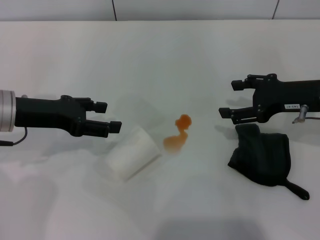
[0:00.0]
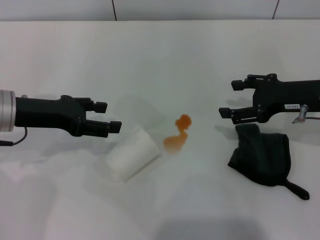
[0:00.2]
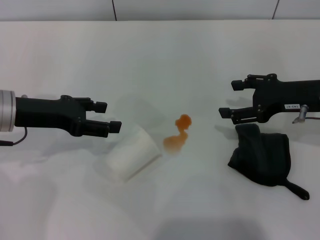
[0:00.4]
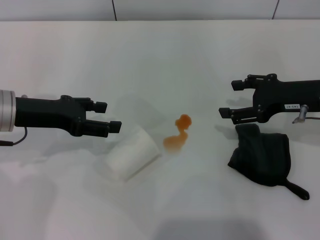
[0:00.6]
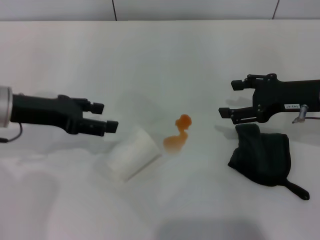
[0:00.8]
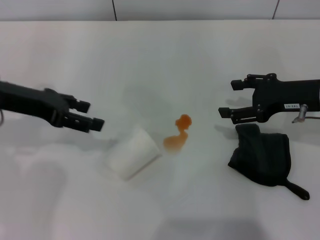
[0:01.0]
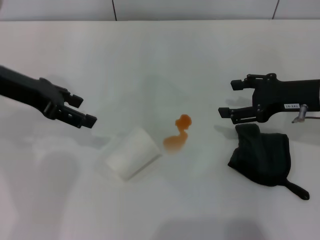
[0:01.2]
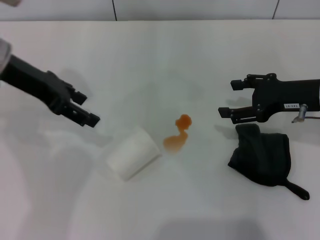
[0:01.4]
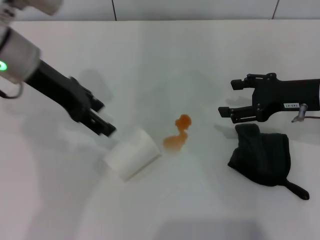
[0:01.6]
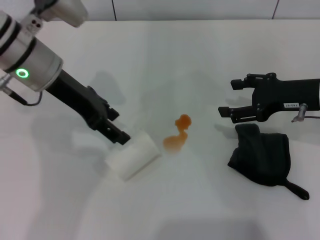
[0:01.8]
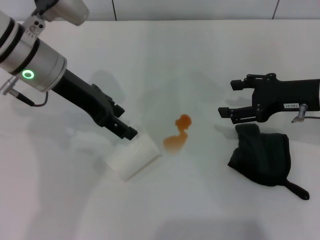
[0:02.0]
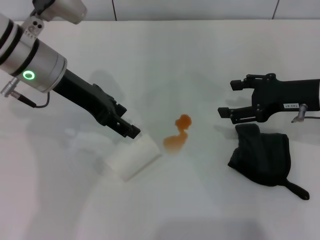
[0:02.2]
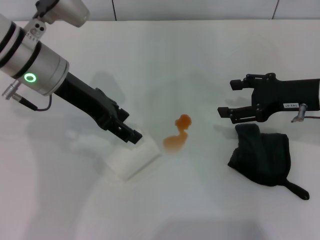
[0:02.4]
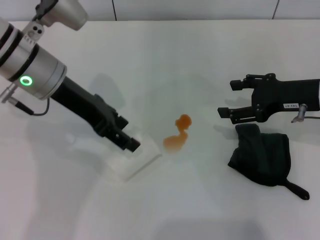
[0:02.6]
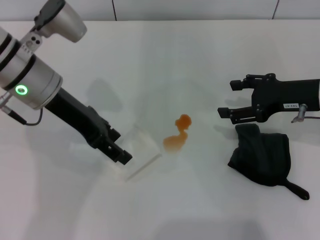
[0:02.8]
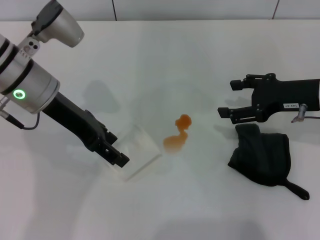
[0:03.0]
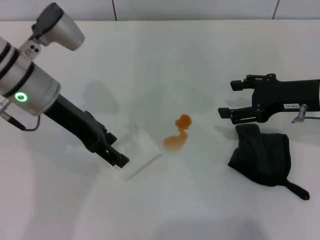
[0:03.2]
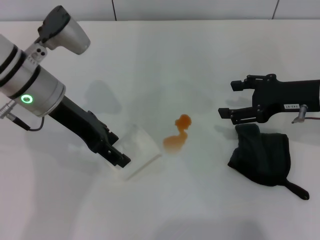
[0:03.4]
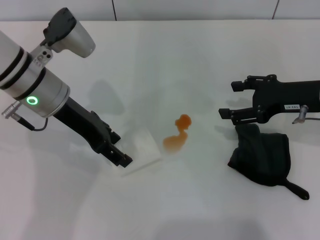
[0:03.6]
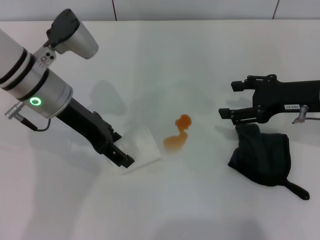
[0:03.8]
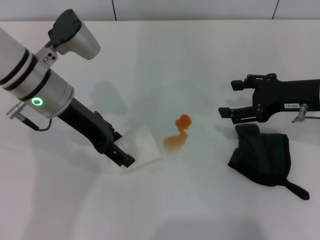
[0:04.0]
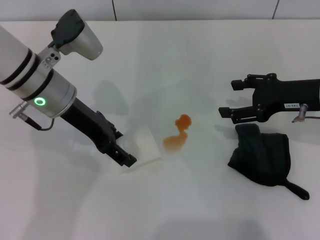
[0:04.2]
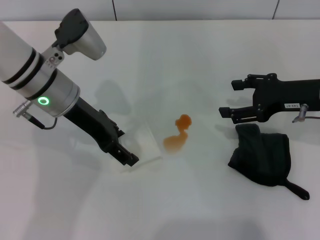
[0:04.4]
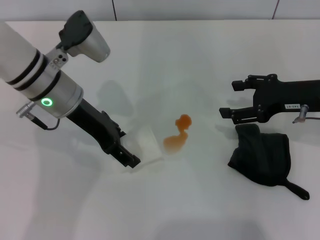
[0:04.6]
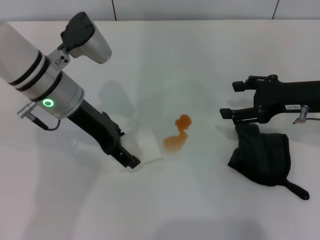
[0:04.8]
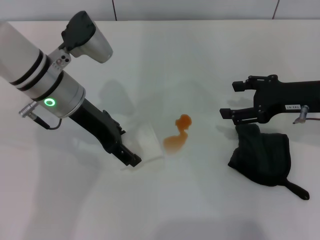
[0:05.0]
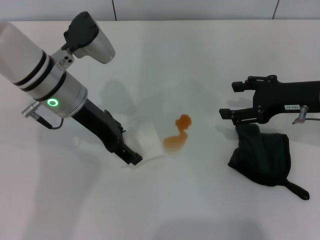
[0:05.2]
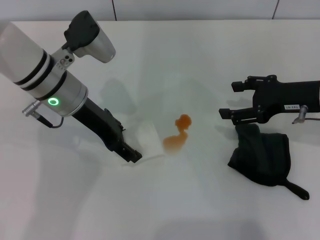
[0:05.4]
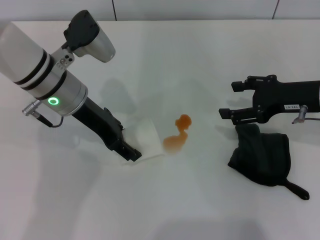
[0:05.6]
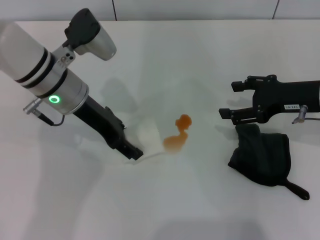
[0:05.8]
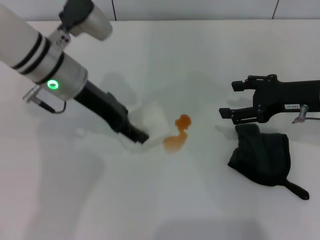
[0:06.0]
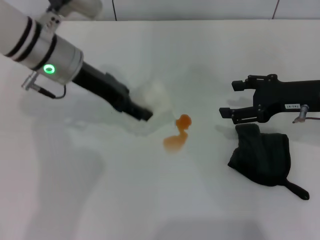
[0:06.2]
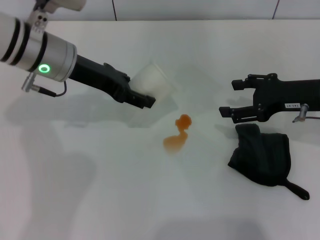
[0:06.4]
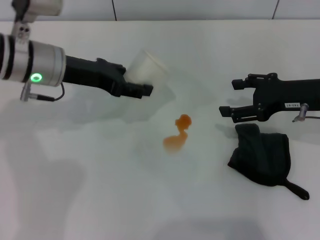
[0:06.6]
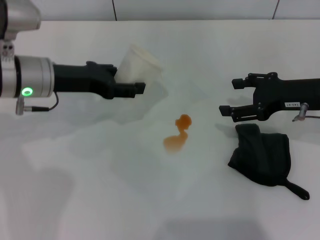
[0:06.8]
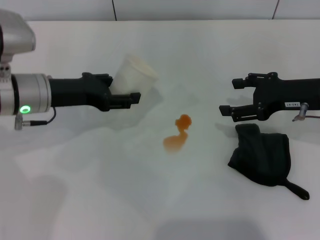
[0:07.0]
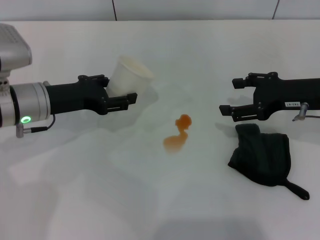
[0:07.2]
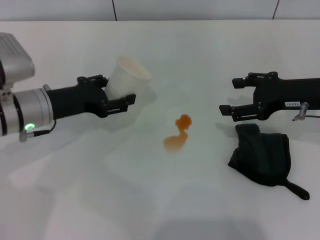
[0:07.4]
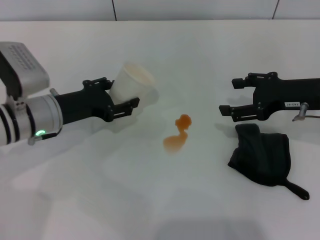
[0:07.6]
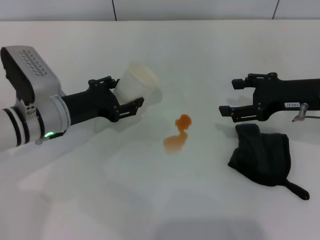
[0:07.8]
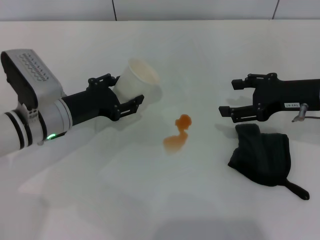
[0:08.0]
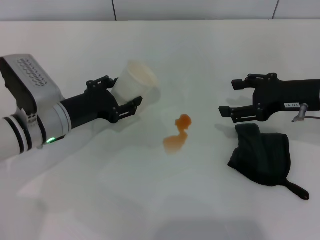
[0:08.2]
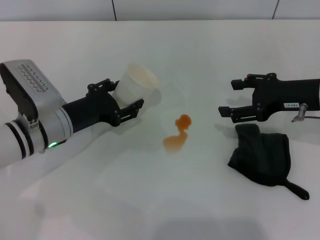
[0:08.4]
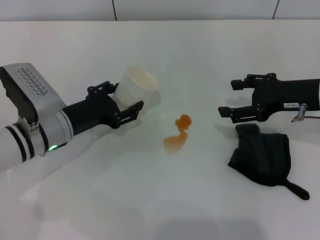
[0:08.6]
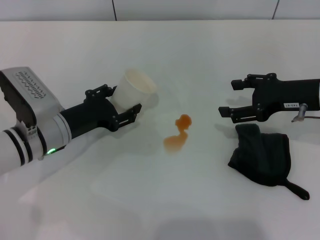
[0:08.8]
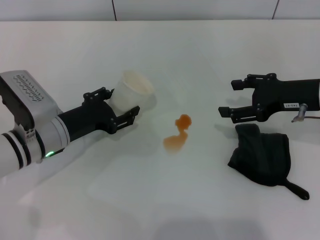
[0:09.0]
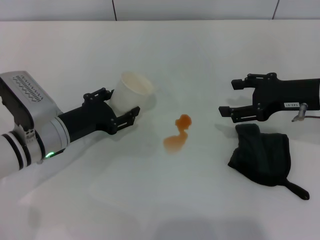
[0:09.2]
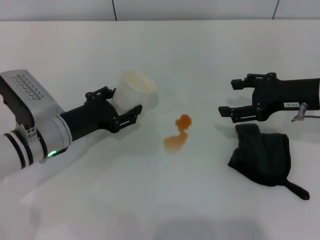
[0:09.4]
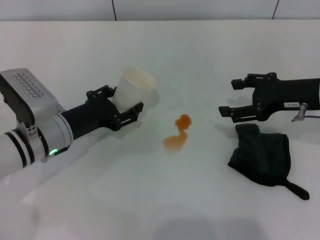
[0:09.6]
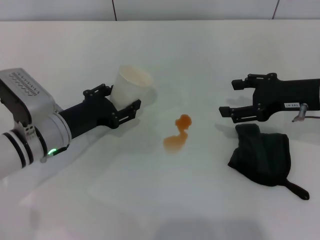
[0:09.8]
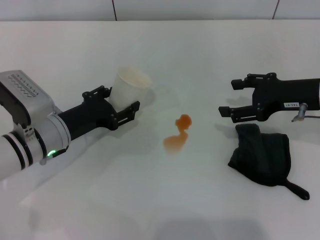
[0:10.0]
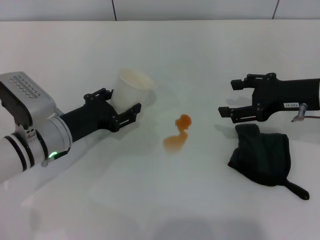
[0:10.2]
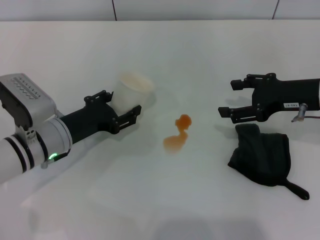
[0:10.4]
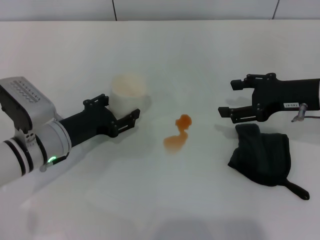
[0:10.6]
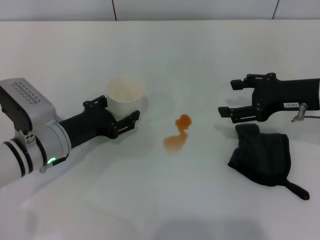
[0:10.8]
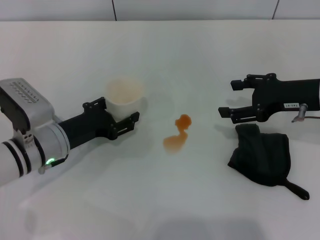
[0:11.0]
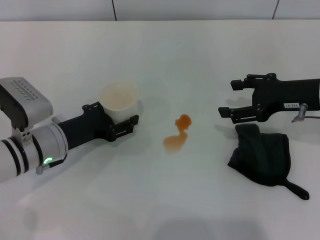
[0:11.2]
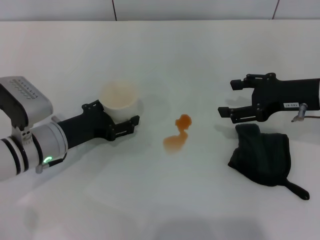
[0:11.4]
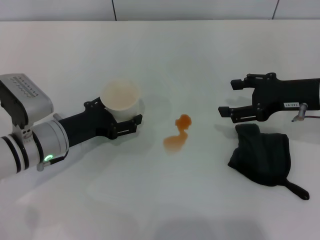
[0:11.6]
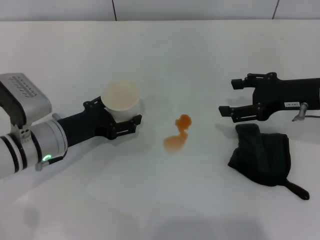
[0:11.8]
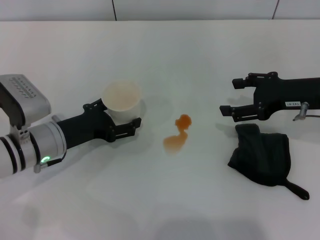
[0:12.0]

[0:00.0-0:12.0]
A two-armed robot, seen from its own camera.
Step, 0:00.0 to 0:05.6: Grasp the paper cup with the left gripper.
0:00.0 to 0:01.6: The left gripper goes some 10 cm upward, to the right and forward.
0:01.6 to 0:03.0: The grippers make only small movements.
0:03.0 to 0:04.4: The grippers move only a little.
0:04.4 to 0:06.0: The left gripper closes its fingers.
0:06.0 to 0:07.6: The left gripper moves downward and to the left, about 10 cm.
0:07.6 to 0:10.4: The grippers make only small movements.
0:10.4 to 0:12.0: The left gripper opens.

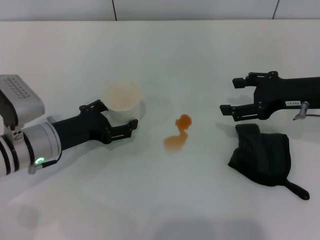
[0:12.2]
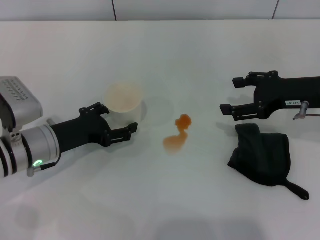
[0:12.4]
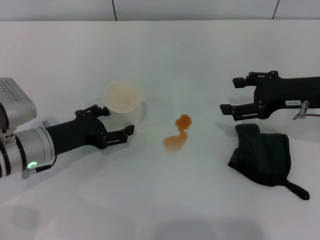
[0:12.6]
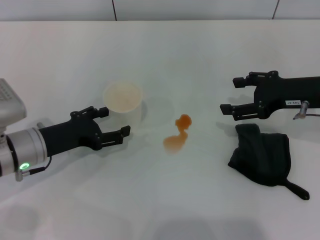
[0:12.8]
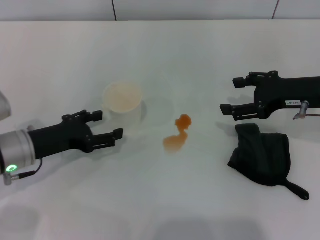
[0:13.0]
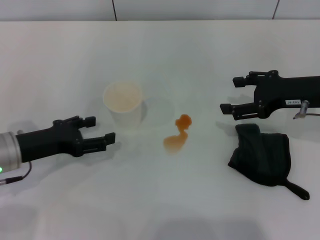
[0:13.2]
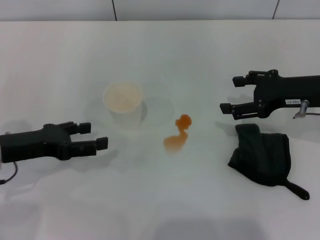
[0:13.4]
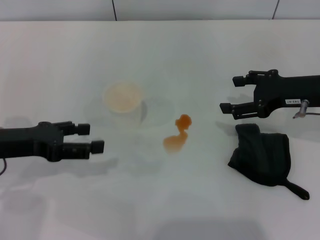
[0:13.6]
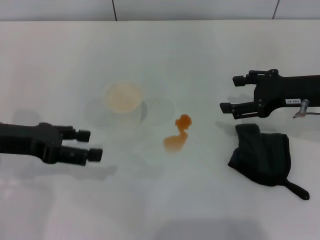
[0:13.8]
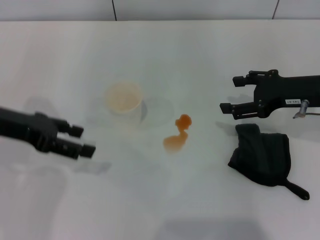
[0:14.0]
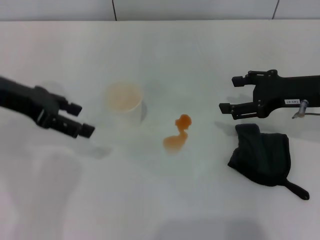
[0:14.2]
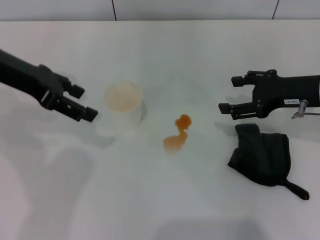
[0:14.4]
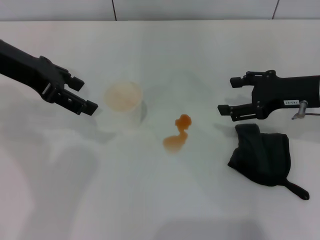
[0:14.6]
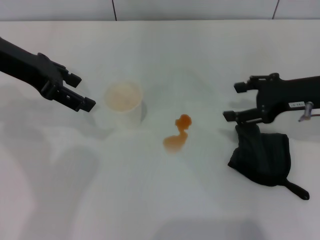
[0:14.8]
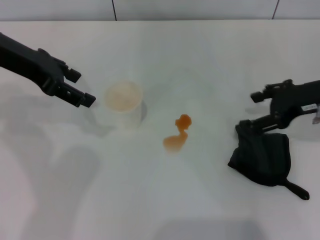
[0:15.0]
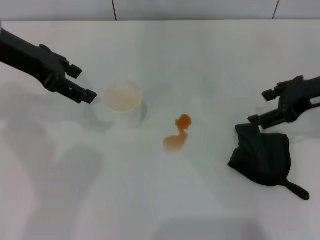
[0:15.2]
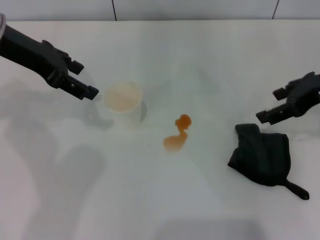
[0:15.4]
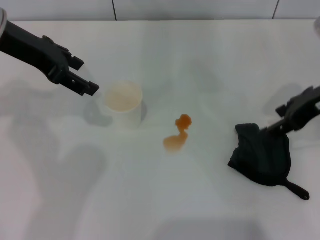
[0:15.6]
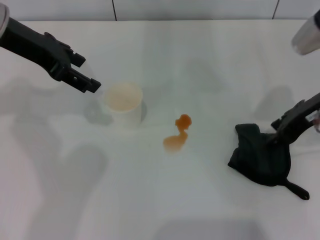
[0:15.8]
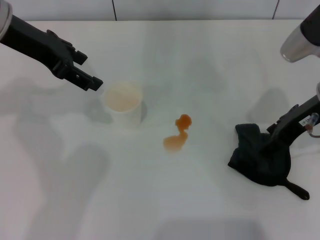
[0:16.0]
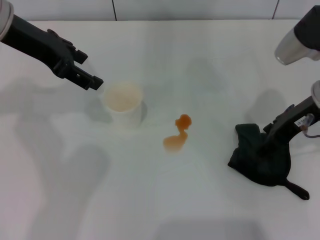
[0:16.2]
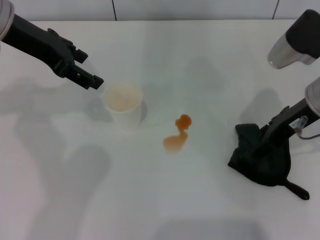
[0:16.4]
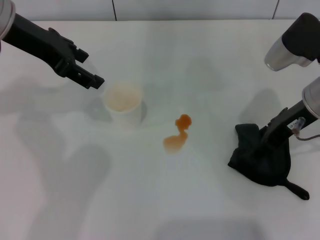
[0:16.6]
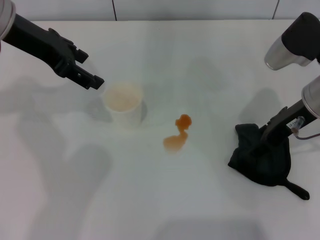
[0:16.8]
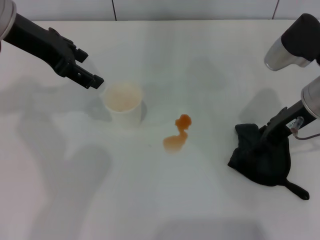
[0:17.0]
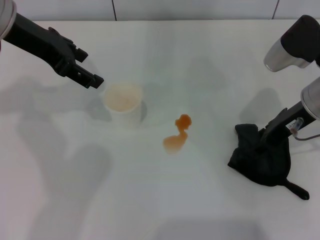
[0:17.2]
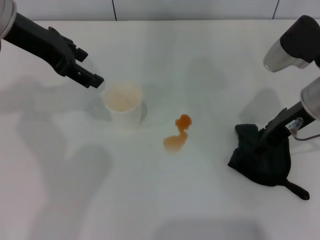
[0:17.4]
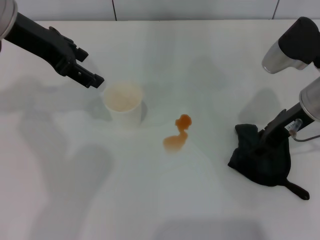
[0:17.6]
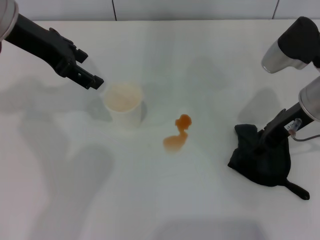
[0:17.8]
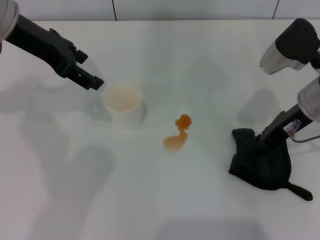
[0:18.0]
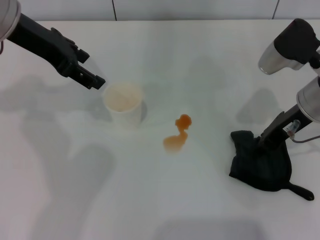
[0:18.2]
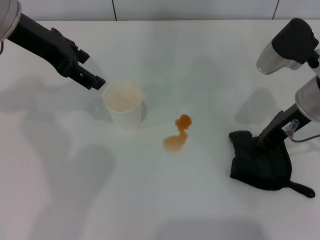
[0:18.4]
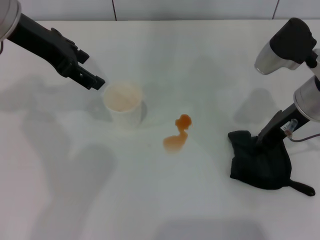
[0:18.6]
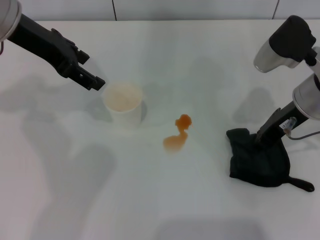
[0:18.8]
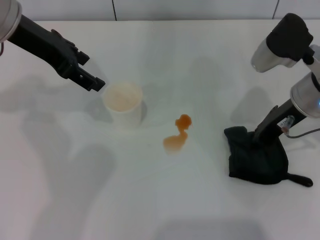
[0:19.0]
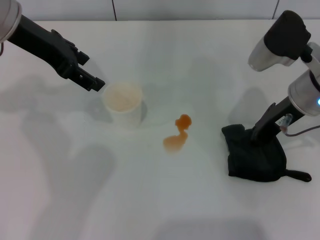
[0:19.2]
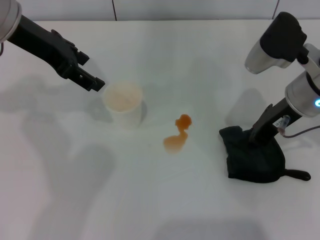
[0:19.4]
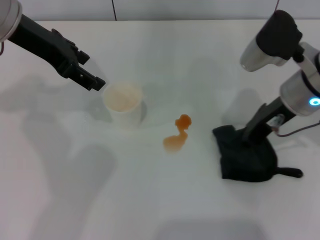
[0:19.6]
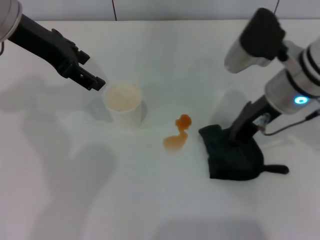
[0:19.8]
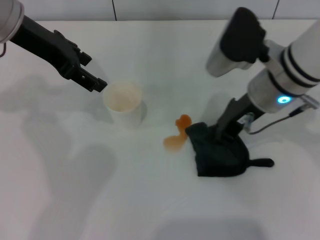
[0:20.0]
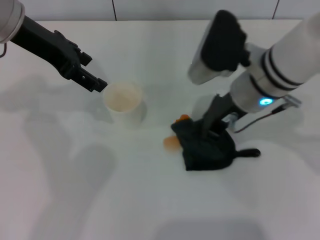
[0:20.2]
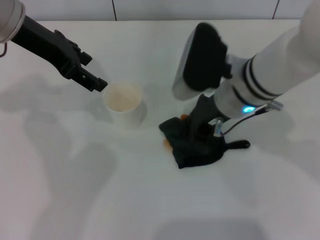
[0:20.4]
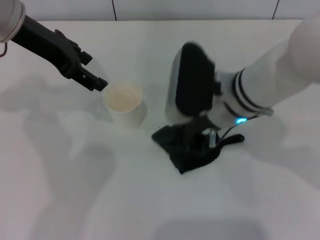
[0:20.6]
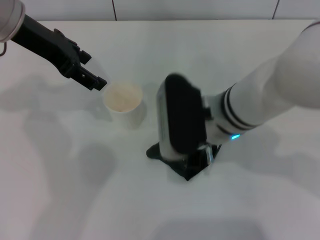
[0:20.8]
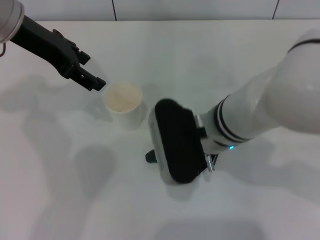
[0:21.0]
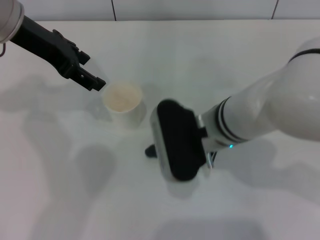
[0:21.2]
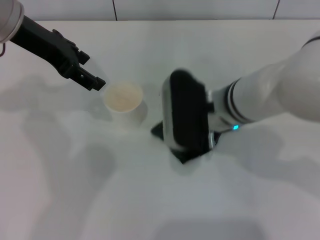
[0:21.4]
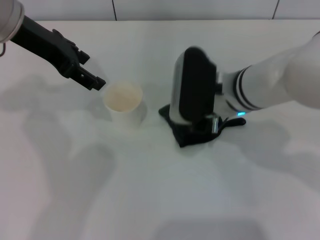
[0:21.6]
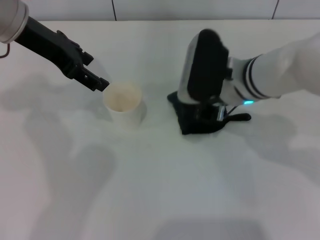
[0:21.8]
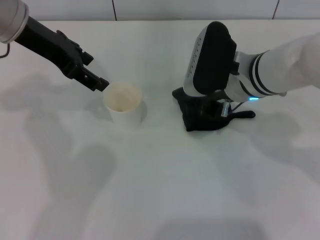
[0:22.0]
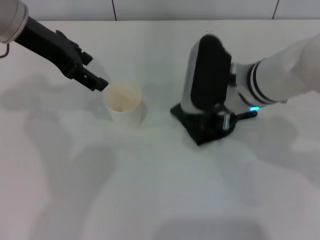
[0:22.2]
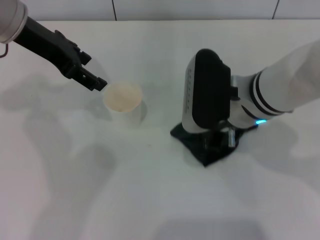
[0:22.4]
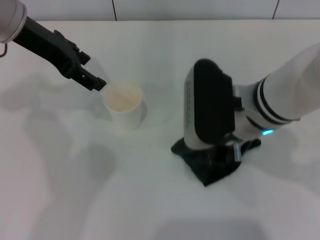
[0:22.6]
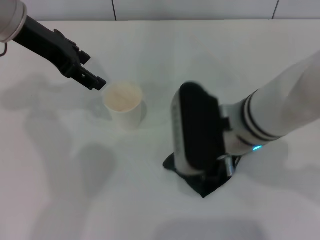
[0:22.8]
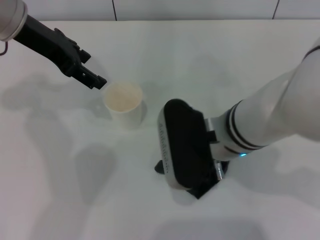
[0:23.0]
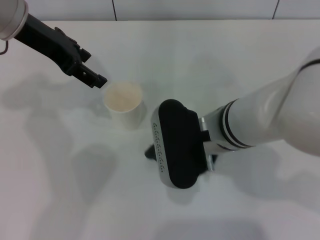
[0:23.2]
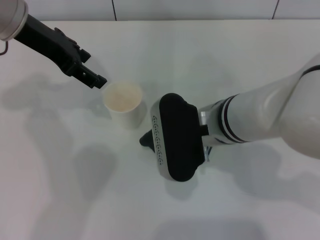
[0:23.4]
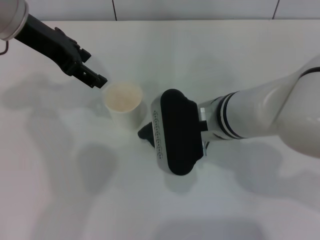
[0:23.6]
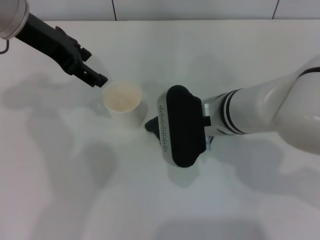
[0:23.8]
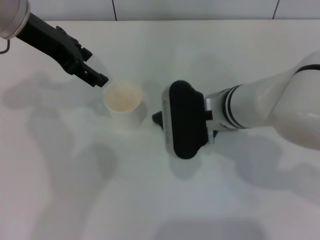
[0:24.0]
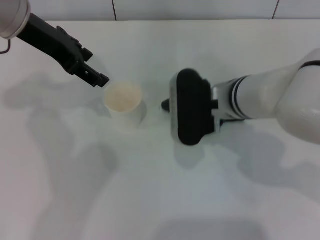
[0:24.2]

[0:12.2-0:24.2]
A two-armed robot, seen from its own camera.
Step, 0:13.2 to 0:18.2: Grasp the rag with the right gripper.
0:12.2 to 0:13.8: The left gripper shifts approximately 10 cm upward and to the left.
0:13.8 to 0:15.2: The right gripper travels upward by roughly 5 cm. The left gripper shifts roughly 15 cm upward and forward.
0:15.2 to 0:16.6: The right gripper heads to the left, covering roughly 5 cm.
0:16.6 to 0:18.2: The right gripper closes.
0:18.2 to 0:19.8: The right gripper shifts by some 5 cm.
0:19.8 to 0:21.2: The right gripper shifts approximately 10 cm to the left.
0:22.6 to 0:24.2: The right gripper ends up about 5 cm from where it was.
